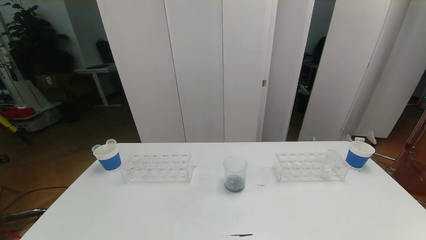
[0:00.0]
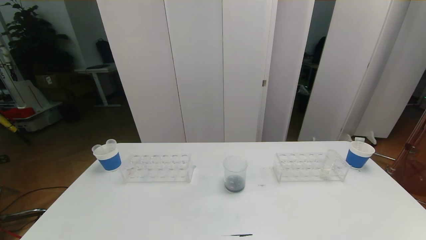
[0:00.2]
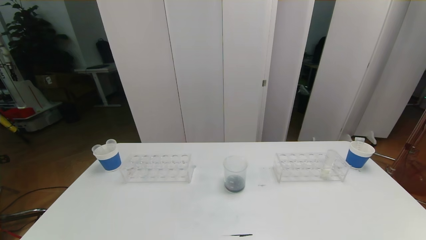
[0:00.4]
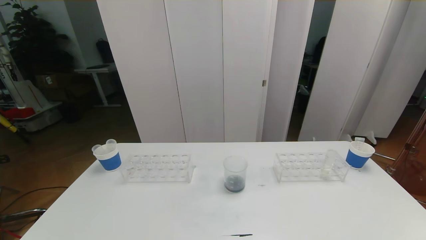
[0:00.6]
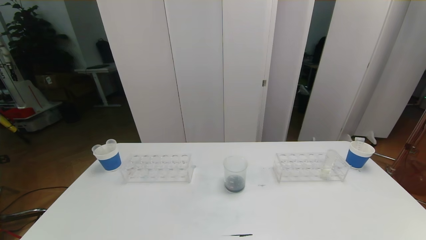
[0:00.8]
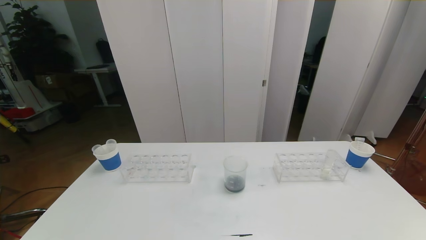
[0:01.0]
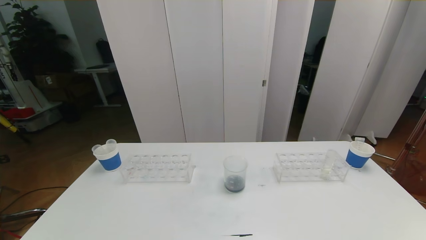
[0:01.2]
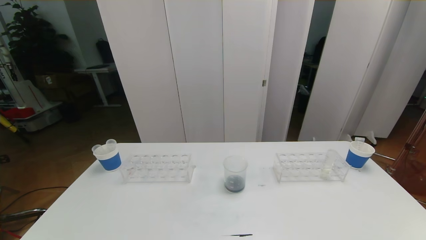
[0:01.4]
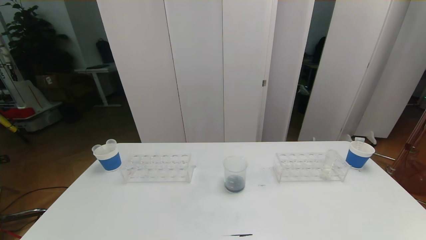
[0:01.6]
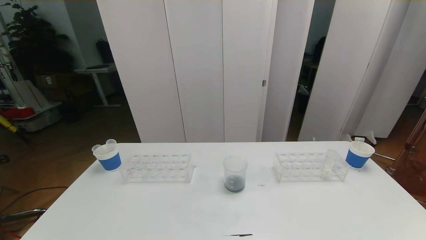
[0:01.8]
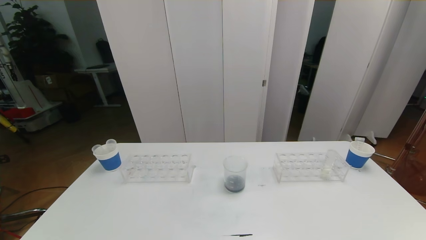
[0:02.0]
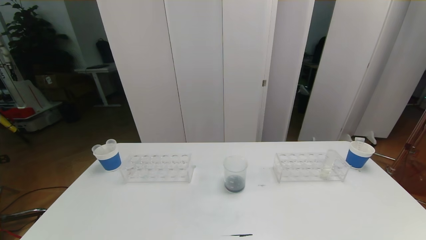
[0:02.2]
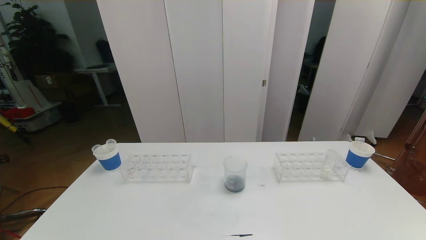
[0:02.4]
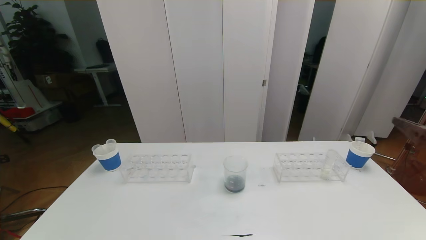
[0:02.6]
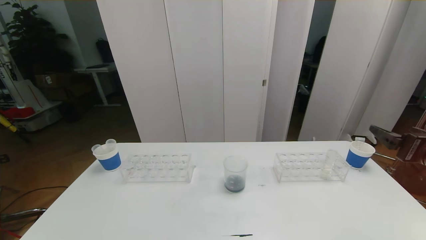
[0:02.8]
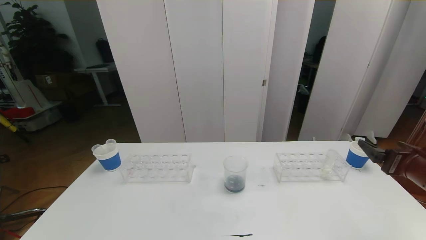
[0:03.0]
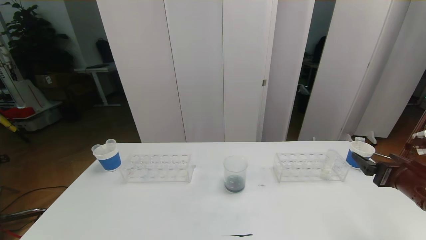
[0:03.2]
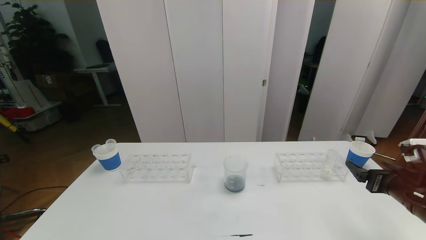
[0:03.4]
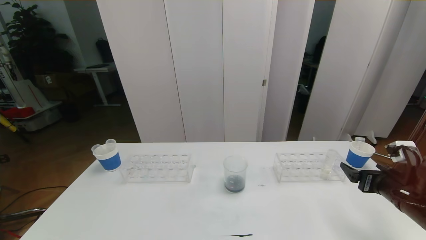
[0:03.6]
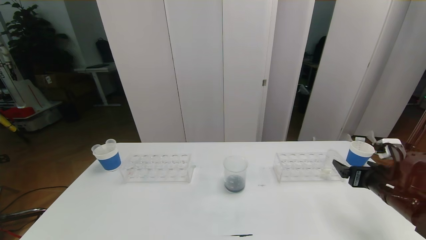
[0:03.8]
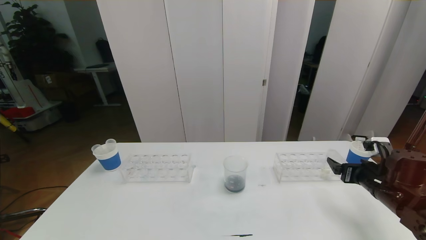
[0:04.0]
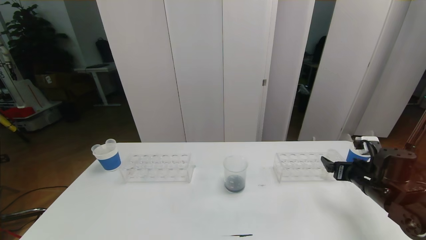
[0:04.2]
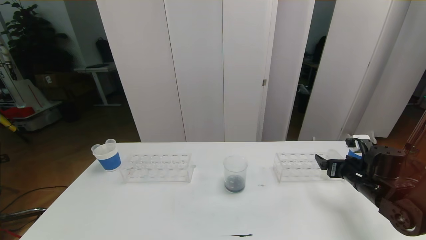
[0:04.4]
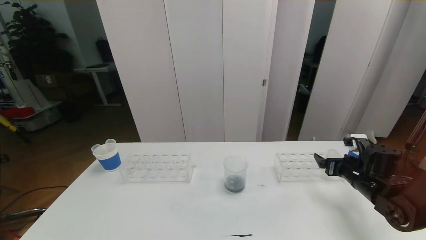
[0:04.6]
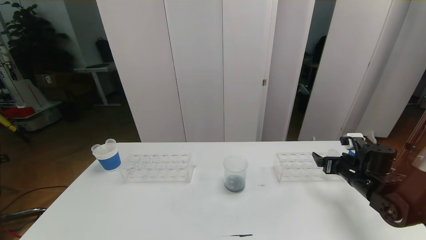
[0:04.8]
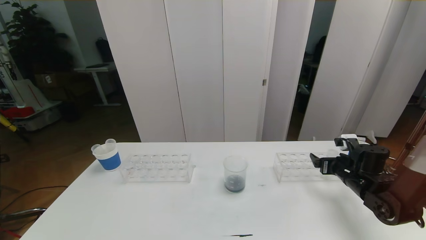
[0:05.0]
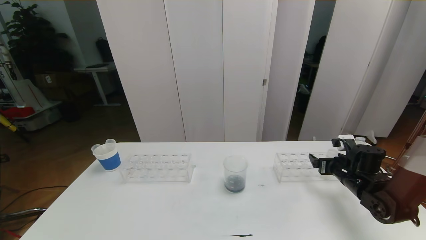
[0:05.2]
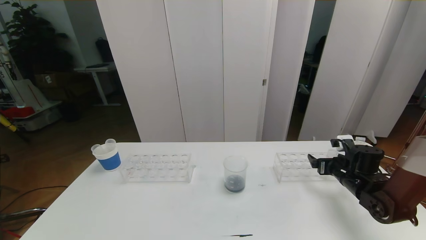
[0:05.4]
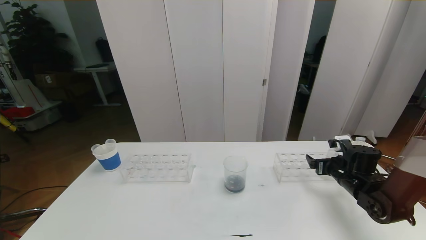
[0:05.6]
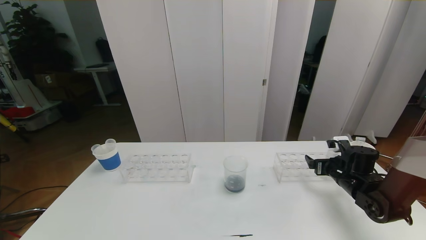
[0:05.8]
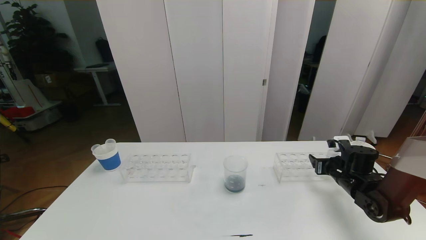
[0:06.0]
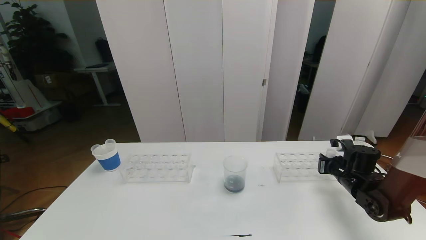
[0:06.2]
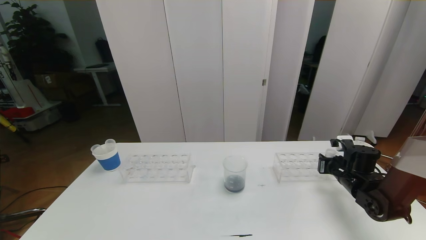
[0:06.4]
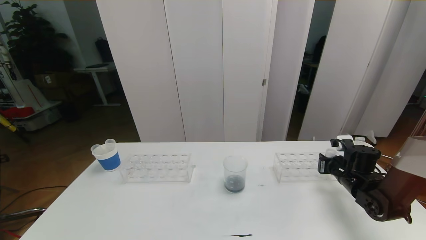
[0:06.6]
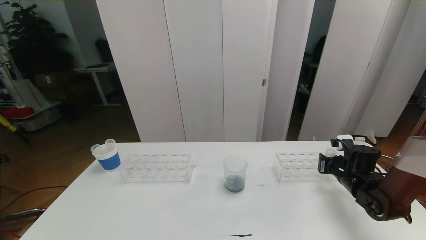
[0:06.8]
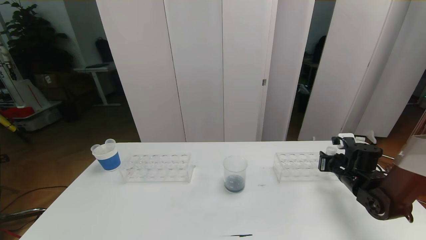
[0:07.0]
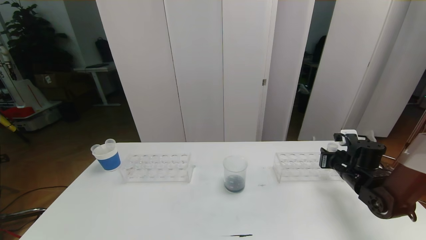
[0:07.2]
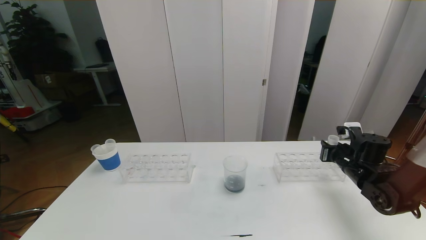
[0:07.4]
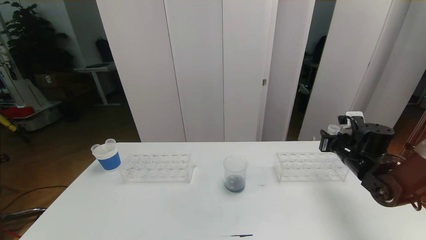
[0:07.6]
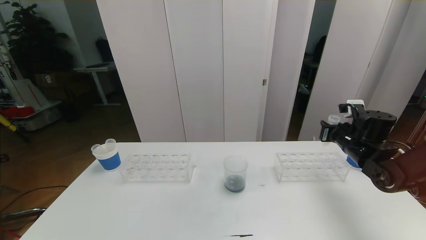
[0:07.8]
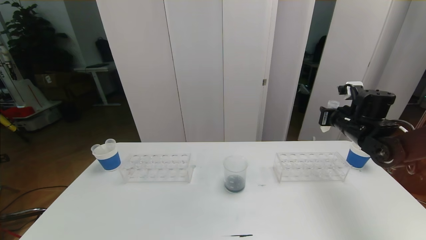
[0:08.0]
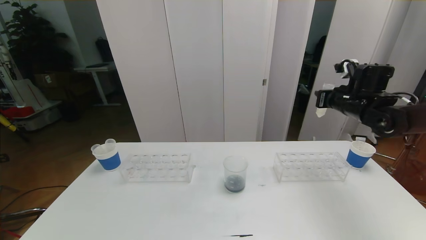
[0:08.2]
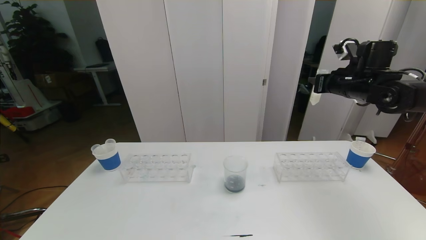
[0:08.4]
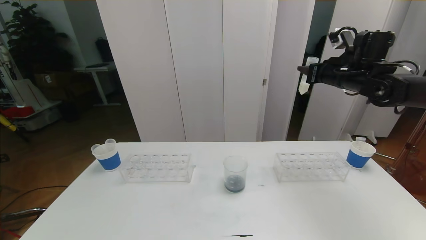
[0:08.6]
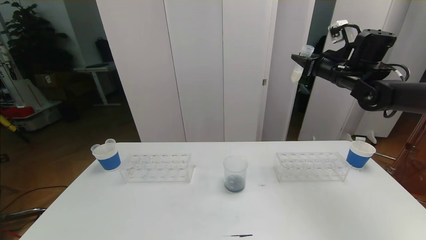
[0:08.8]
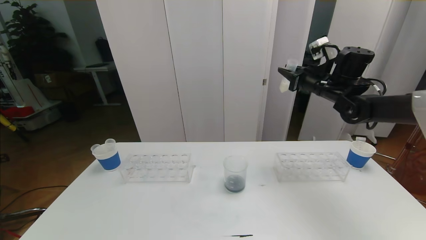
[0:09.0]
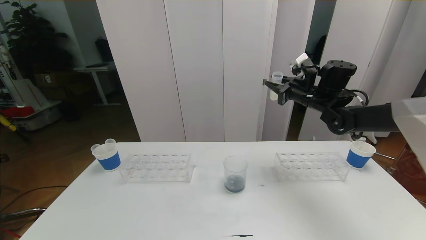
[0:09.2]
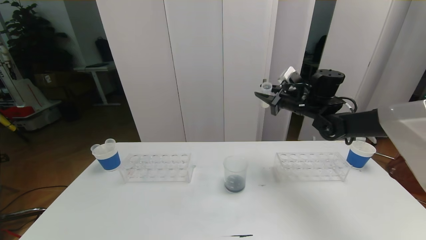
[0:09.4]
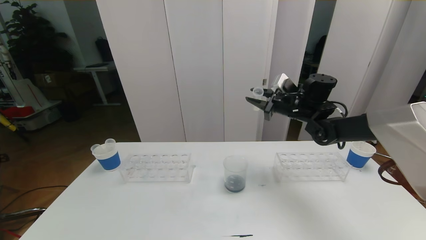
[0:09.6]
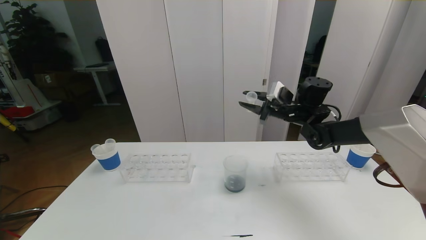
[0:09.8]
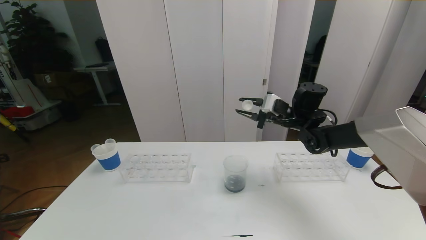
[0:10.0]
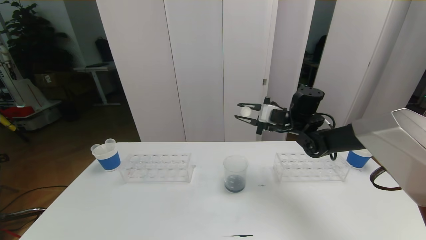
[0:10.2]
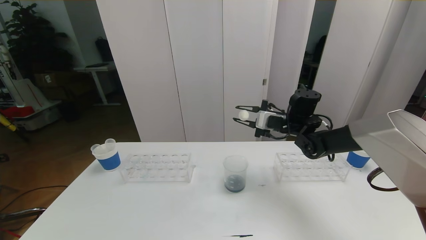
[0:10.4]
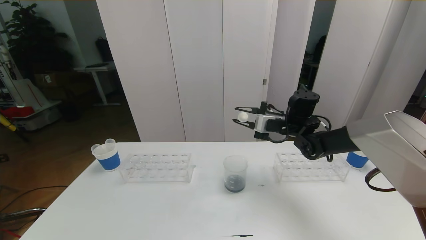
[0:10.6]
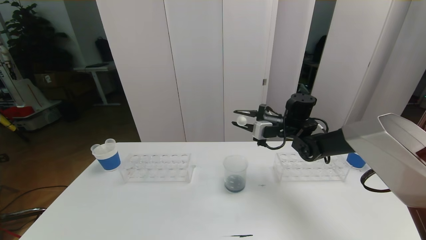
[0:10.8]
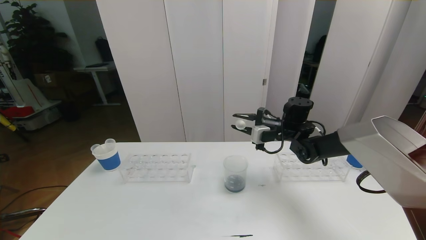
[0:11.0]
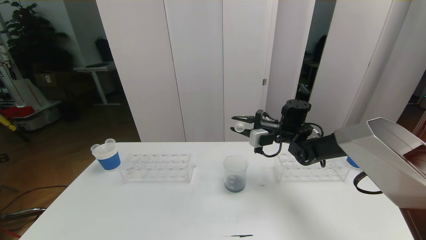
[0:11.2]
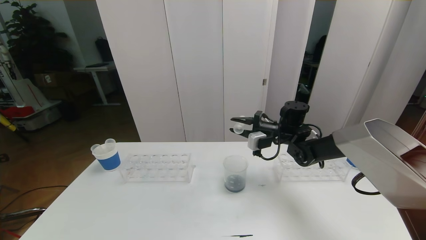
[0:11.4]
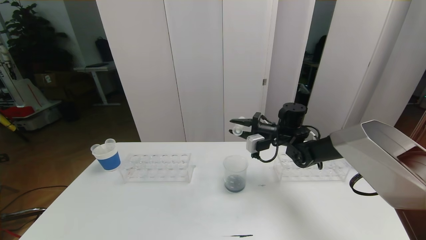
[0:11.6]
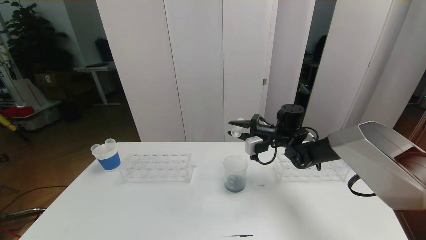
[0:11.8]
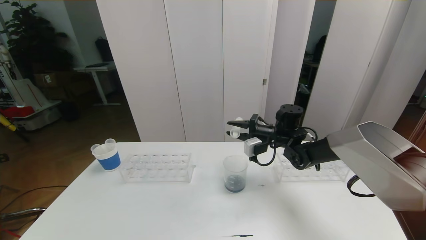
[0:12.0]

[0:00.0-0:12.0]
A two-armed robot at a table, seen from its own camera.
Task of the whole recording: pick up the test tube with red pigment the test tube with blue pigment and the test tube with white pigment by grippers and pour them into the beaker.
0:01.6 to 0:03.0: The right gripper shifts approximately 25 cm forward.
0:03.0 to 0:04.4: The right gripper shifts roughly 15 cm downward and forward.
0:04.4 to 0:06.0: The right gripper shifts by roughly 5 cm.
0:06.0 to 0:07.6: The right gripper travels upward by about 5 cm, and closes up.
0:07.6 to 0:09.0: The right gripper heads upward and forward, covering approximately 20 cm.
0:09.0 to 0:10.4: The right gripper moves downward and to the left, approximately 15 cm.
0:10.4 to 0:12.0: The right gripper ends up roughly 5 cm from where it was.

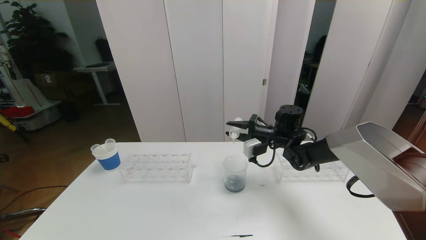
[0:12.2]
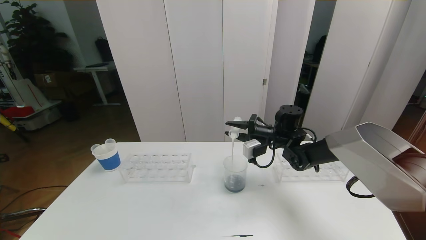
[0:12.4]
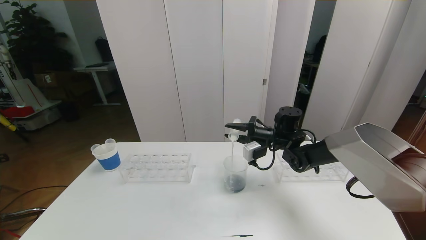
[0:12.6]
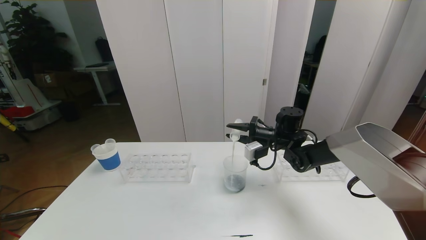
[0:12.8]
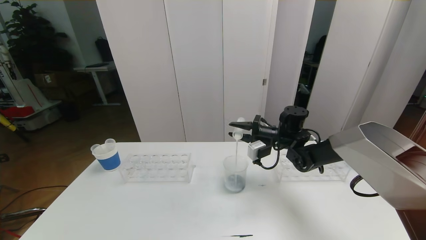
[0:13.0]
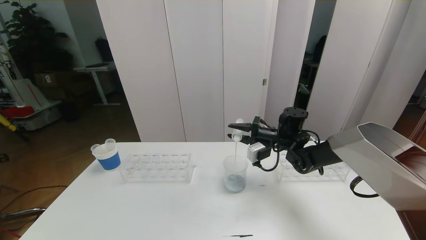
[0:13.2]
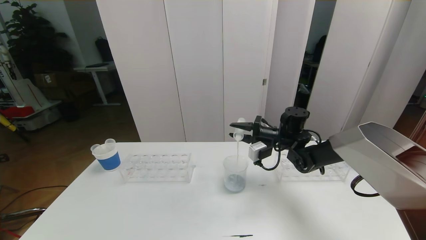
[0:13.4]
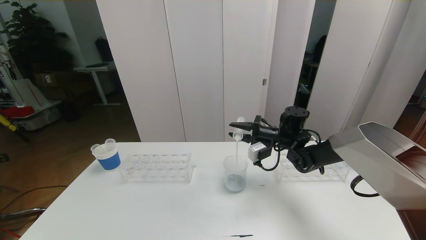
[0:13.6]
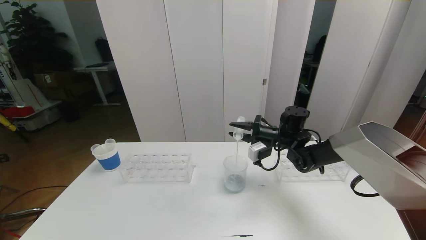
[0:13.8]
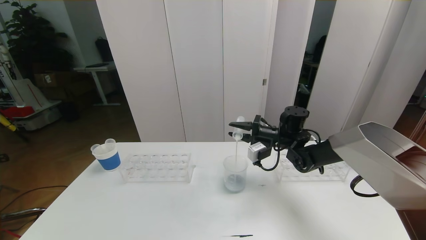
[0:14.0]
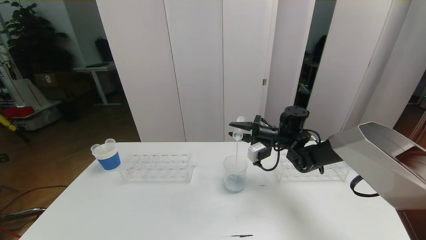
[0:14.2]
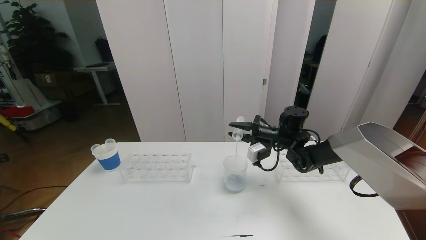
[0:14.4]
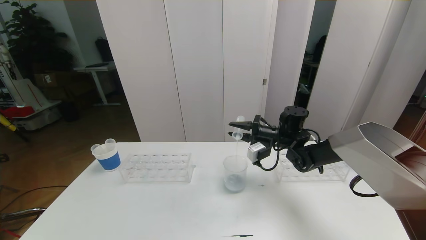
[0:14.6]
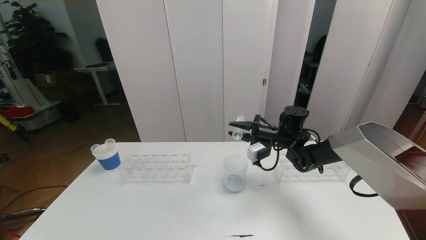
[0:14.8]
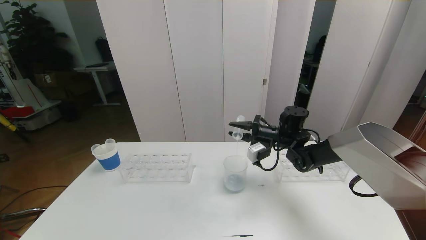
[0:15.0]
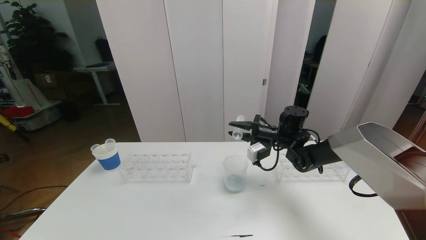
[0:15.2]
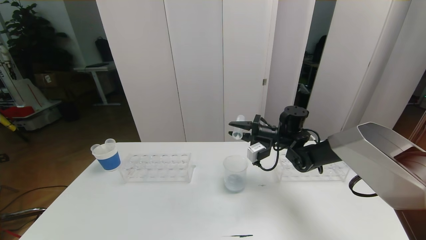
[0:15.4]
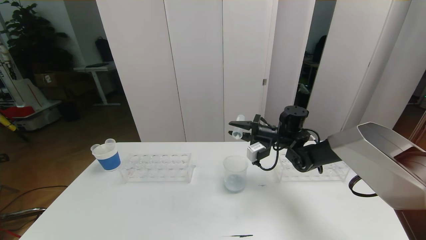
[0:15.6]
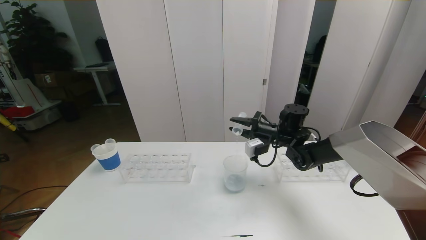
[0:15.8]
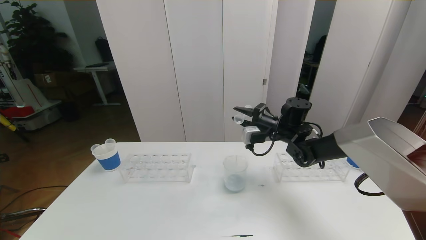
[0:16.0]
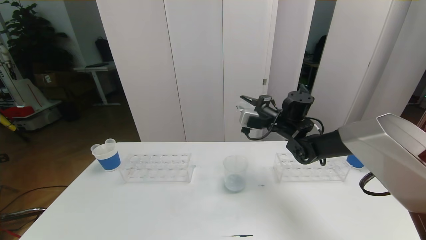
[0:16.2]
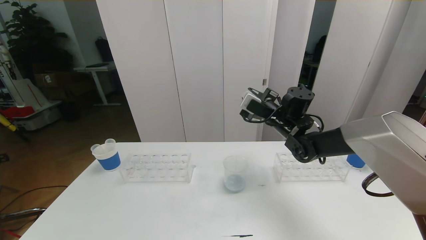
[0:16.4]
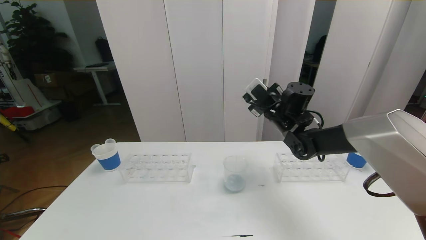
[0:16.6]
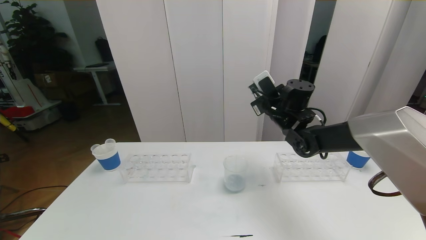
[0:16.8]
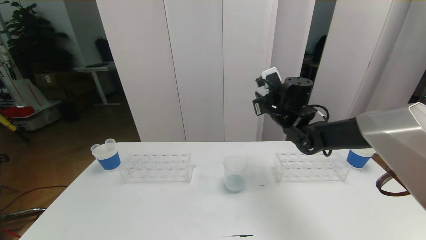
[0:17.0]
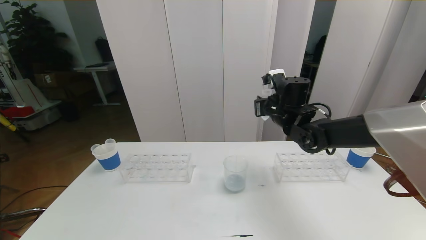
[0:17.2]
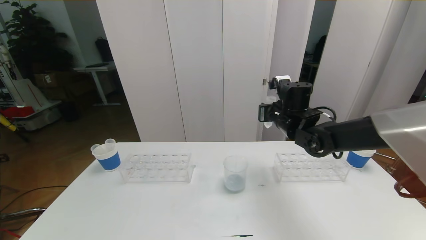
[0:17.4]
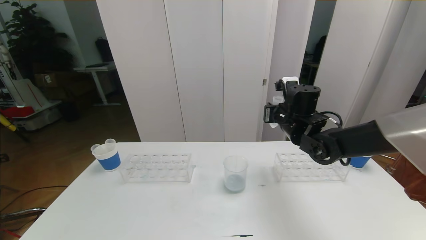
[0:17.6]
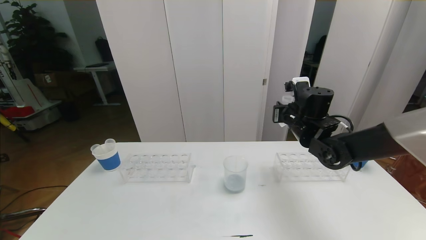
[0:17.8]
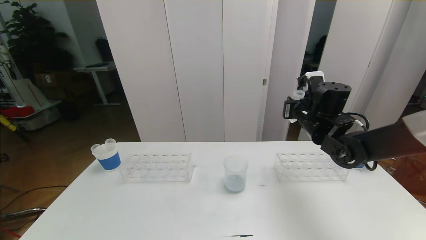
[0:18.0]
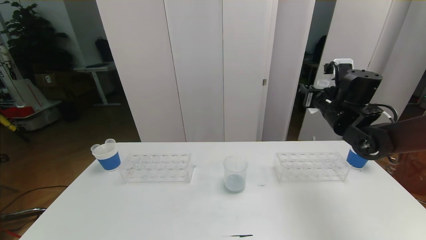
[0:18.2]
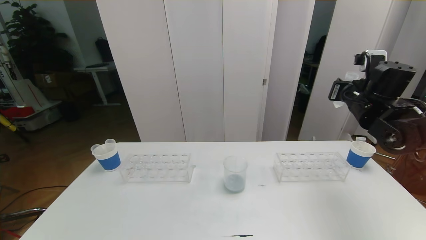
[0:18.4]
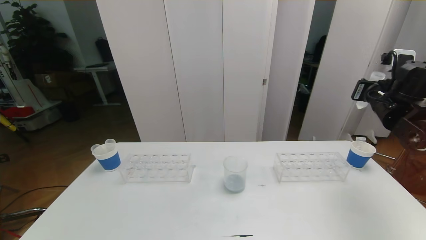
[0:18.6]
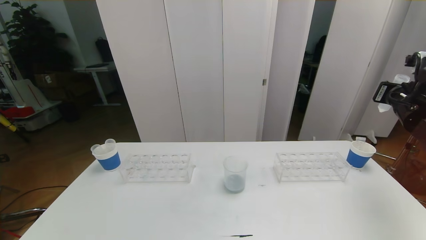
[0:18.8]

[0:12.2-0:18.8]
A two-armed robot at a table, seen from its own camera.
Task of the whole recording: pick up the test tube with red pigment the test tube with blue pigment and the test tube with white pigment by grippers and pour them into the beaker.
0:12.2 to 0:13.8: The grippers move only a little.
0:13.8 to 0:15.4: Neither gripper changes place.
0:15.4 to 0:17.2: The right gripper shifts about 10 cm upward.
0:17.2 to 0:18.8: The right gripper is displaced to the right by some 25 cm.
